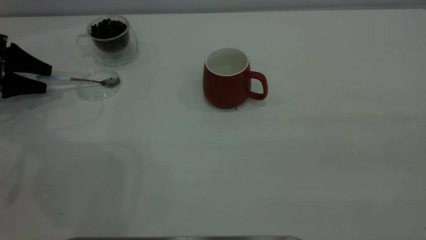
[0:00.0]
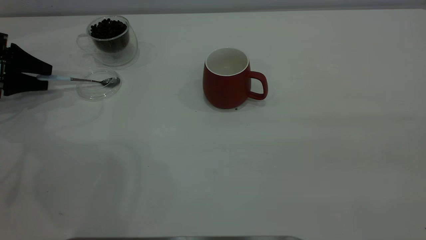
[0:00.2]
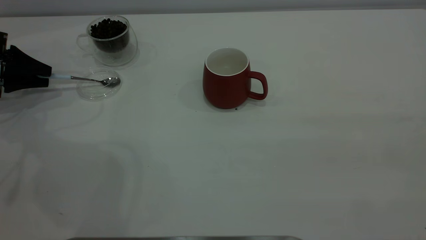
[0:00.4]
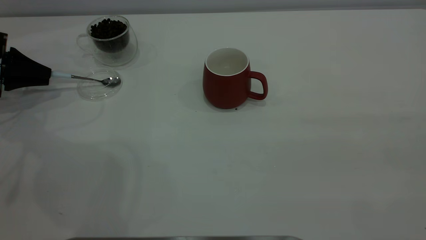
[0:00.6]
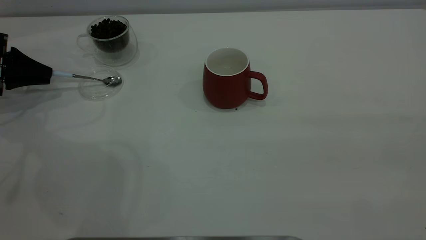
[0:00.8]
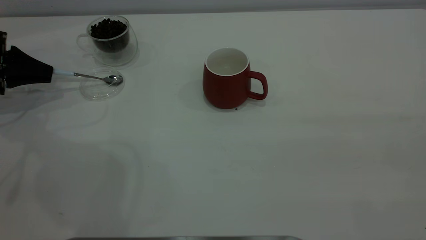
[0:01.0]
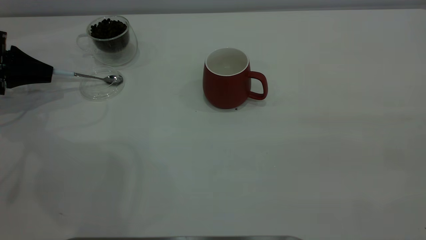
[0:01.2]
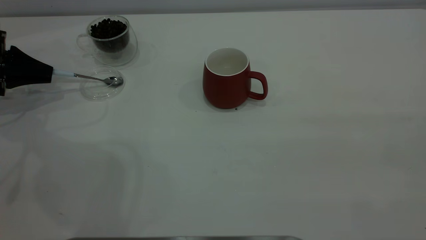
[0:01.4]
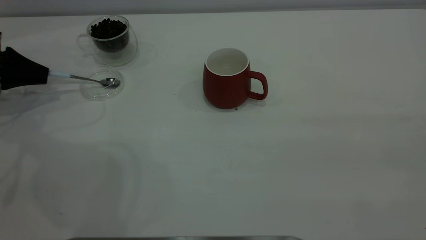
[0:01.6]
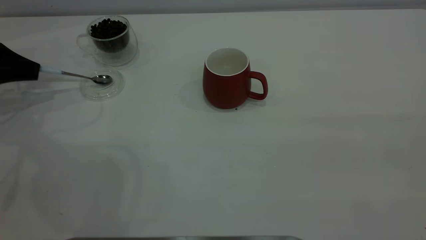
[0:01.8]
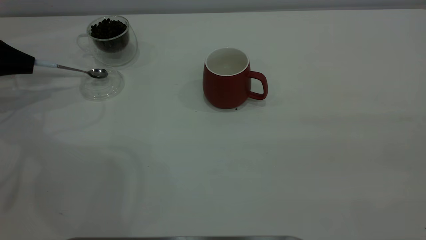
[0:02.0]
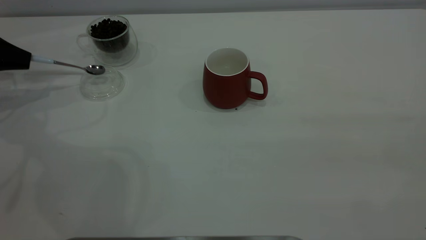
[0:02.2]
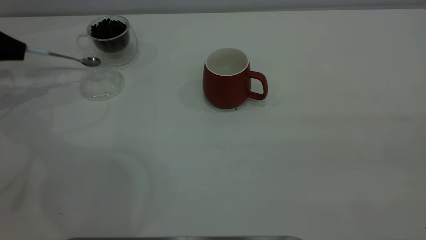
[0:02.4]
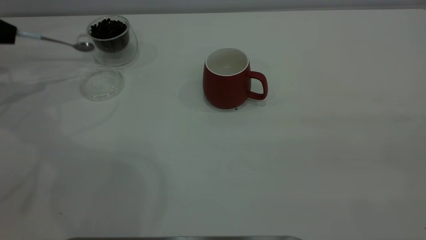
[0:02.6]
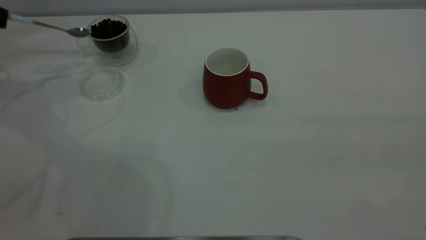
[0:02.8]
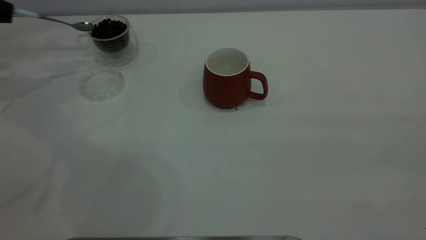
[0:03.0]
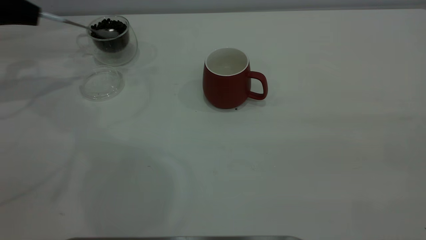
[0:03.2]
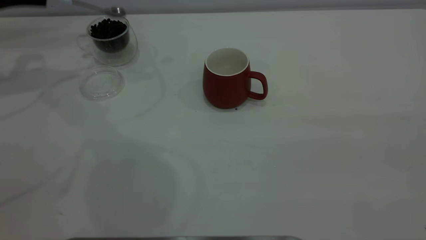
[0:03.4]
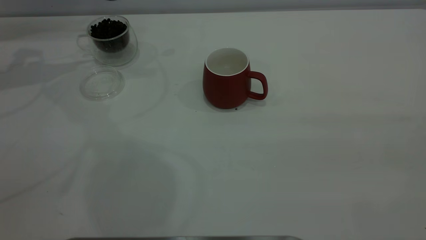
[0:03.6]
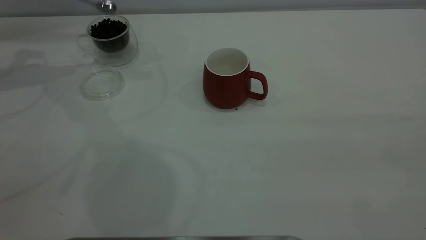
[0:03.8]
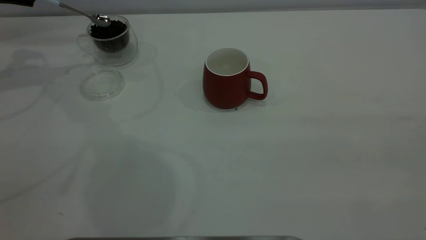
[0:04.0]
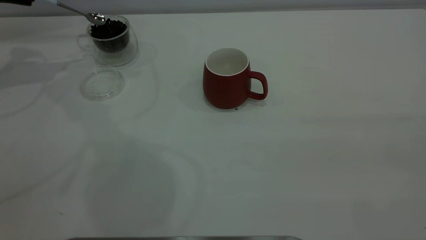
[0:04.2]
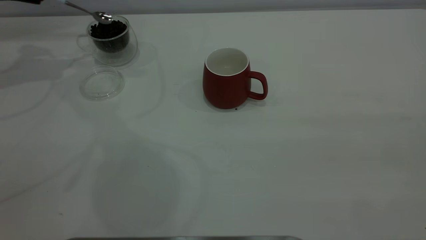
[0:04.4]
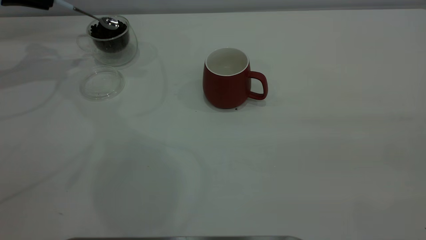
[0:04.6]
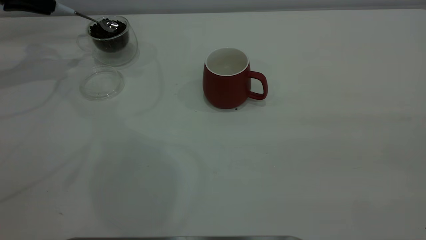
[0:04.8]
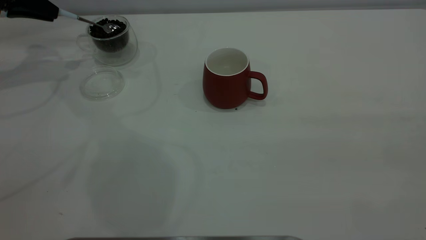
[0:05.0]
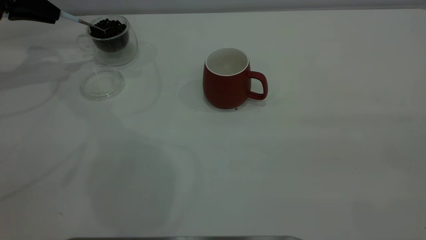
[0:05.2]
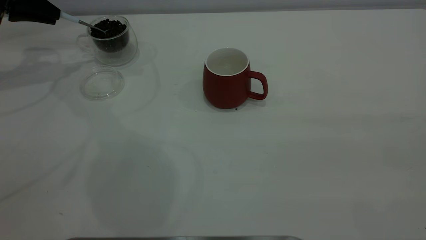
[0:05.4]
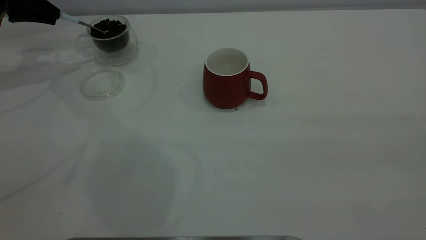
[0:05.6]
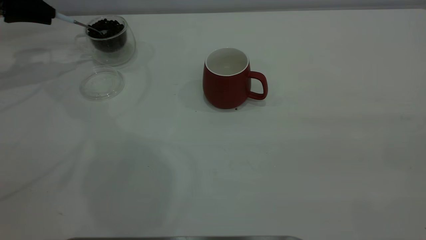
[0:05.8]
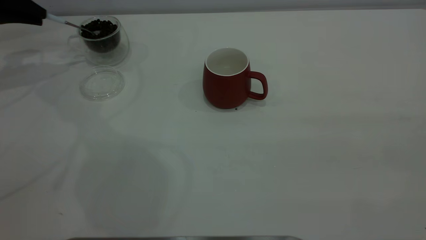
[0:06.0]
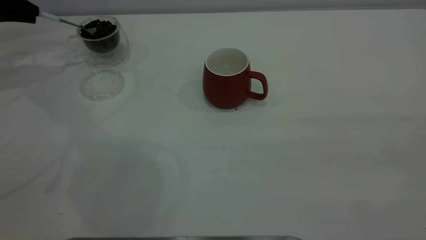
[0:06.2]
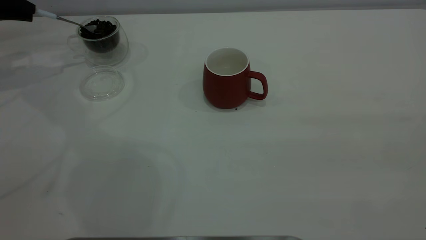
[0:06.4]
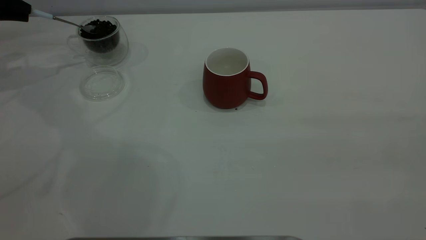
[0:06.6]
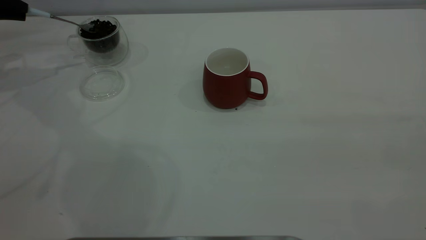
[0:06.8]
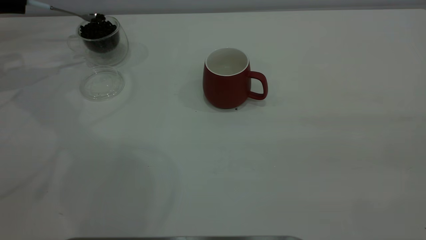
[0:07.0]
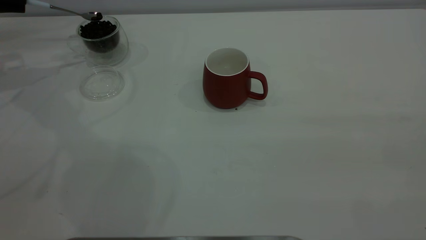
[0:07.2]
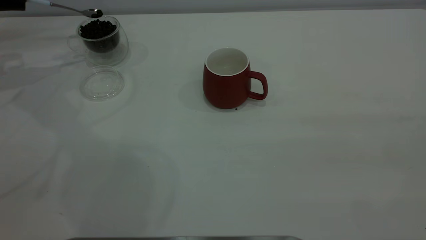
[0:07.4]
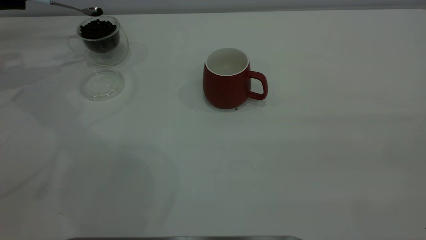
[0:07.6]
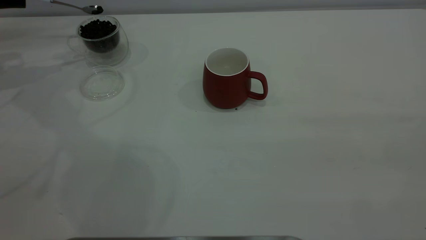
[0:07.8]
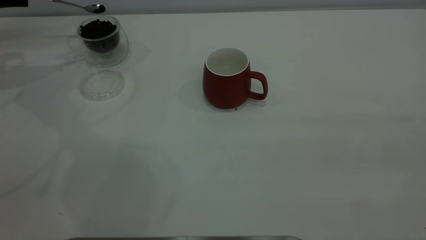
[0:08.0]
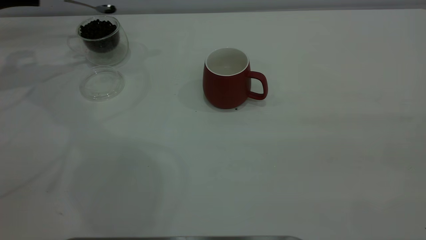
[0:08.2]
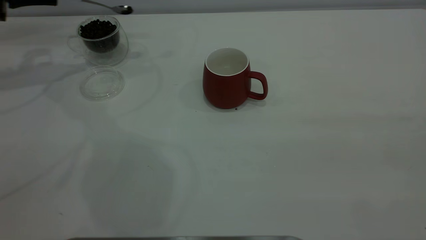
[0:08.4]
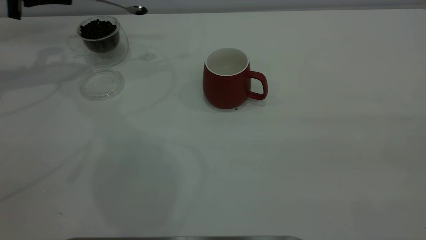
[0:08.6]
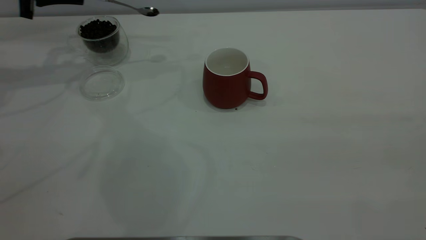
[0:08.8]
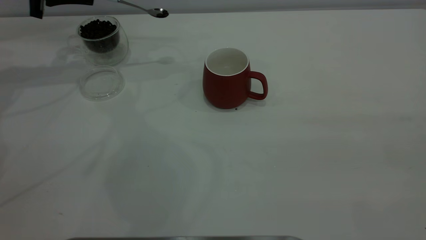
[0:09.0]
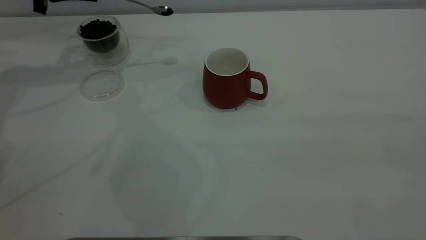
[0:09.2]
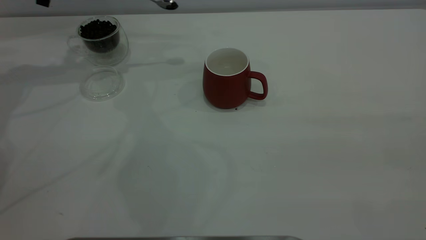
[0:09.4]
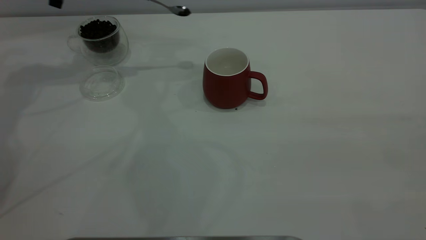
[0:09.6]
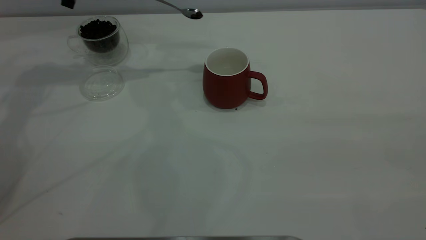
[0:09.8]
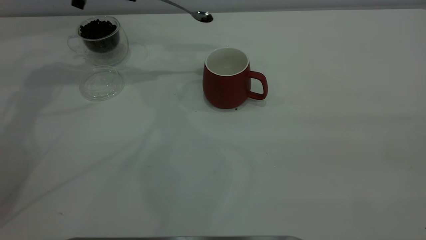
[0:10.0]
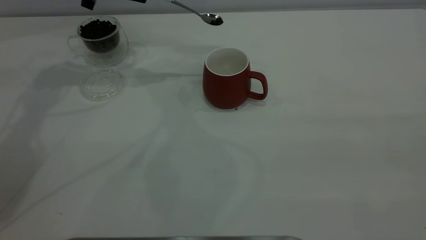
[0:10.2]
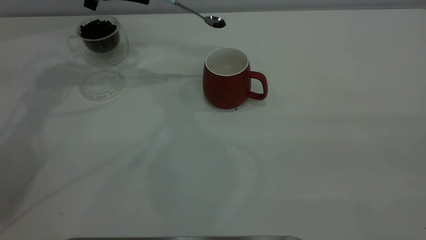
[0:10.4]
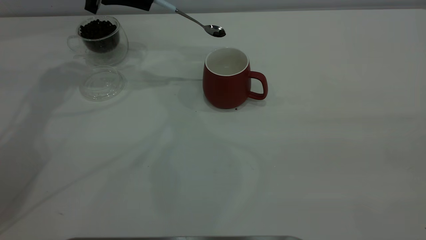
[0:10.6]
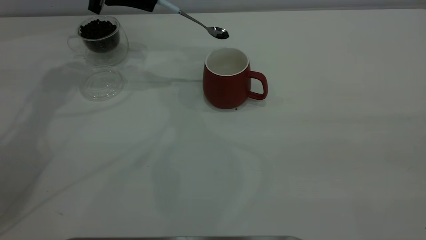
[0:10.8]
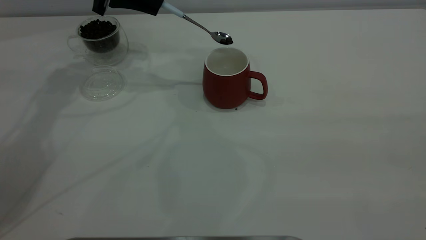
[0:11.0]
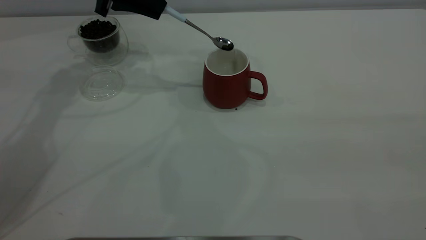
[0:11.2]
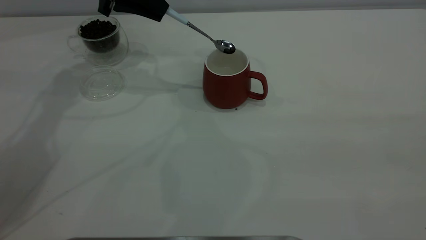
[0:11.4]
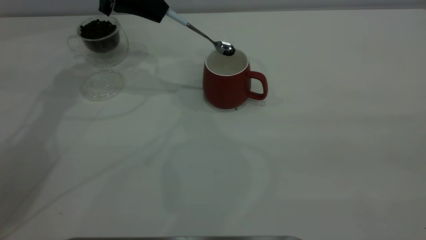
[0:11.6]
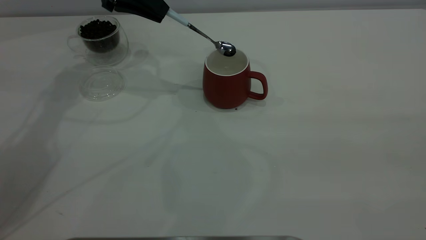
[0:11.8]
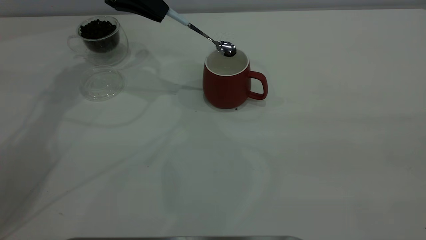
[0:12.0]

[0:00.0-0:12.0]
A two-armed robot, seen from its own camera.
Task of the whole recording: the right gripper place the red cup in the center of the table, the left gripper take the blue spoon from the cup lid and scoop out the coffee beans from the coffee cup and put them into the red cup, the left gripper put the spoon back into the cup lid.
Step, 0:00.0 to 0:02.2: Pick up the spoon.
0:00.0 to 0:01.6: The left gripper closes up.
0:01.6 to 0:03.0: The left gripper shifts roughly 10 cm upward.
0:03.0 to 0:04.4: The left gripper moves forward, approximately 5 cm.
0:06.0 to 0:07.6: The grippers stay close to where they were, moving slightly.
0:07.6 to 0:09.0: The left gripper goes about 10 cm to the right.
0:09.0 to 0:10.4: The left gripper travels to the right by approximately 10 cm.

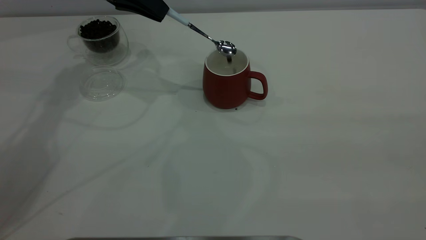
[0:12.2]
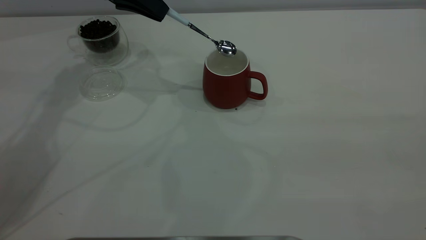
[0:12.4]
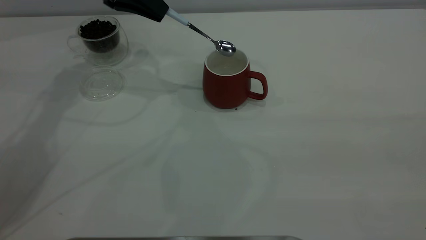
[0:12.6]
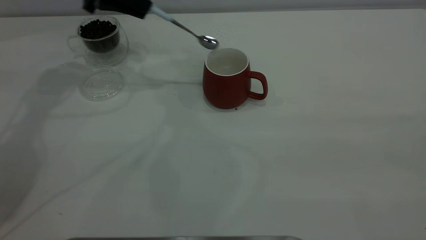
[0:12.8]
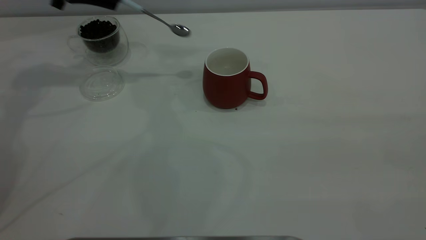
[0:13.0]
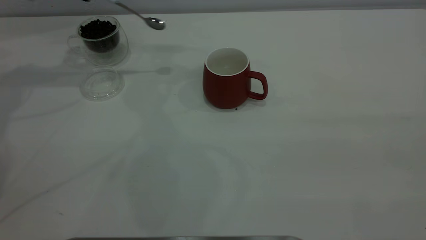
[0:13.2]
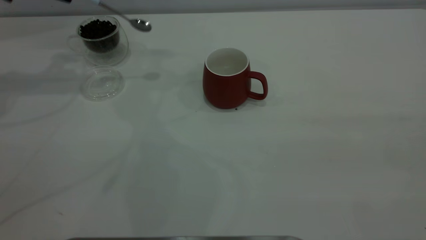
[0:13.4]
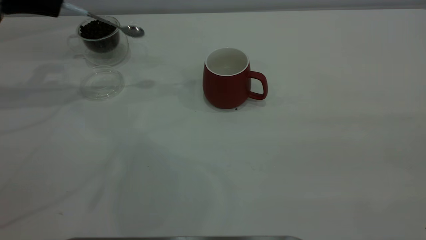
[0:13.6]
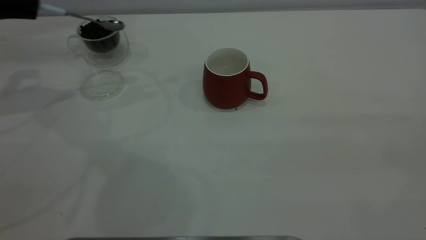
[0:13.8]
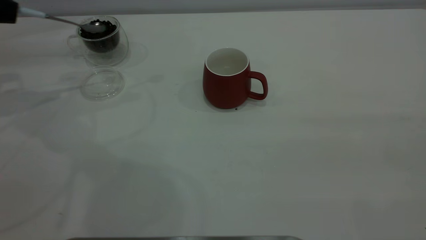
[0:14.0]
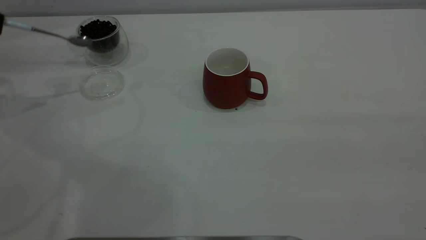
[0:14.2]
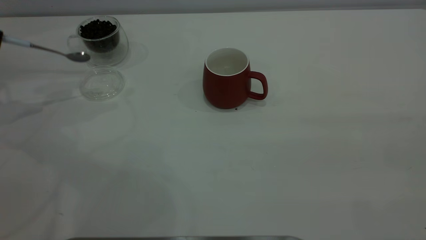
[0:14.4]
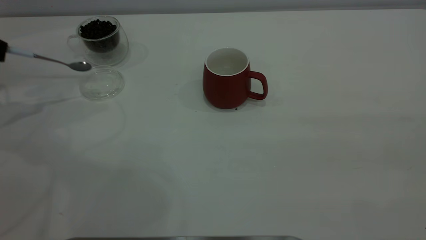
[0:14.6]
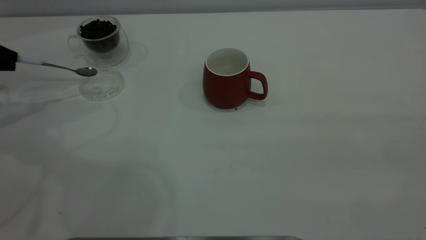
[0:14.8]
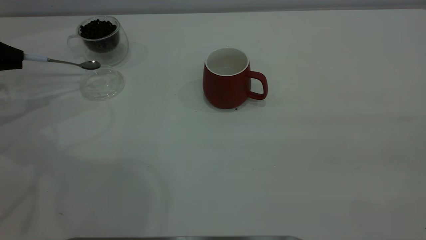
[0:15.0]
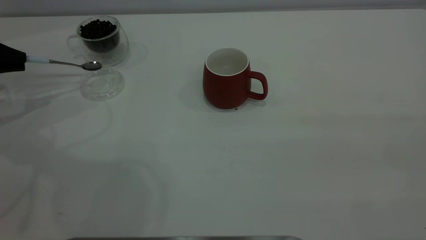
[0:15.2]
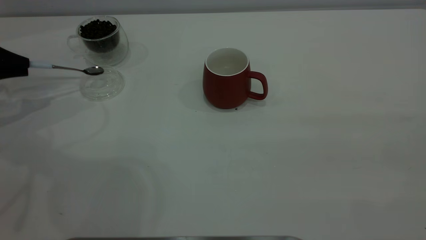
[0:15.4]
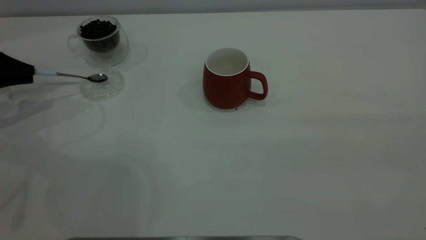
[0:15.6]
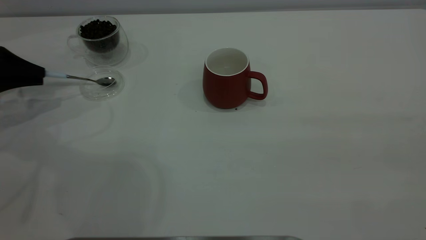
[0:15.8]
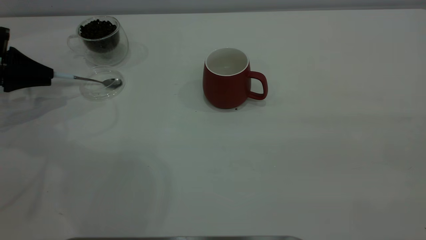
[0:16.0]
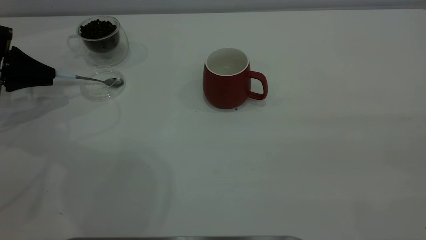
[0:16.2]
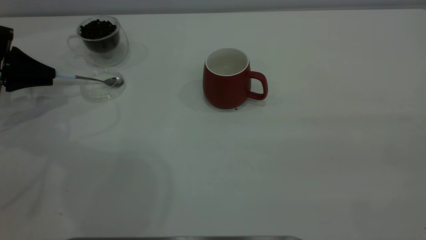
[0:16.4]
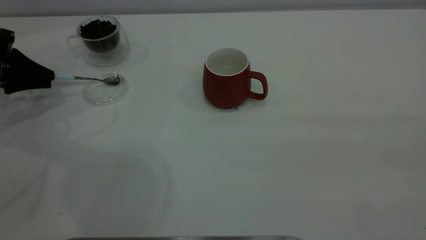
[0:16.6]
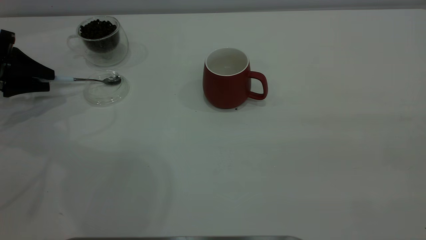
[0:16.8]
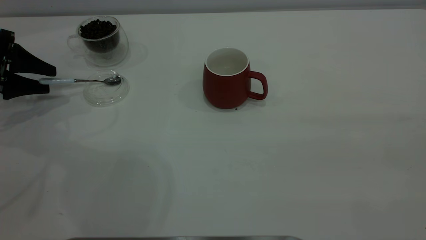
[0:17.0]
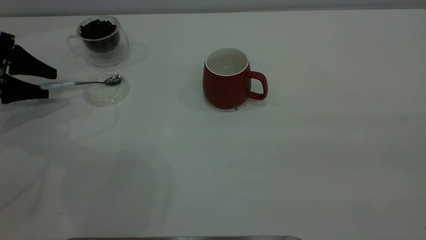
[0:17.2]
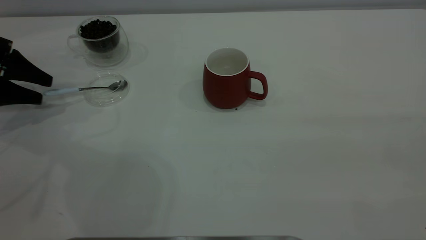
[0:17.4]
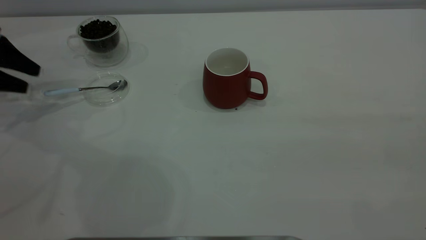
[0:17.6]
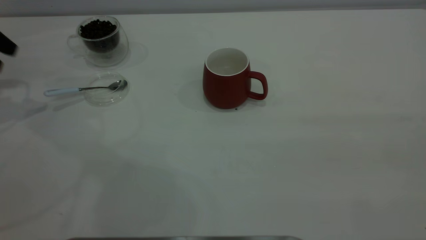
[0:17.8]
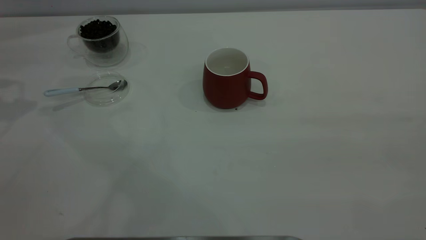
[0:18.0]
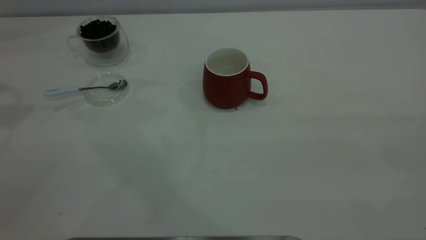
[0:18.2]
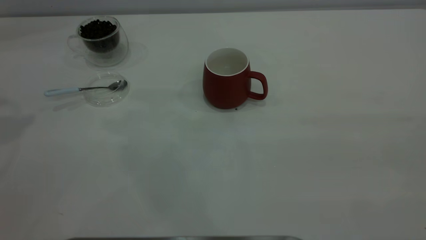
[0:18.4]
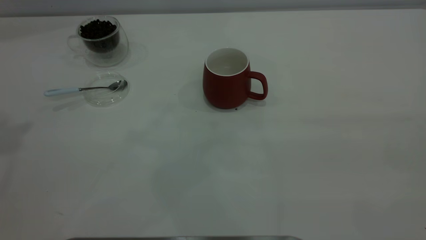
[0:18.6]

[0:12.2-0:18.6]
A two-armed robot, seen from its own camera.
Task of the whole recording: the right gripper place the red cup in the center of the table, the left gripper take the blue spoon from the cup lid and scoop out the coffee beans from the coffee cup and put them into the red cup, the left gripper put the spoon back into the cup lid.
Step, 0:13.0 to 0:17.4: Place the spoon back in its original place.
0:12.2 to 0:13.8: The left gripper shifts approximately 20 cm to the left.
0:13.8 to 0:15.4: The left gripper heads downward, covering roughly 10 cm.
0:15.4 to 0:17.0: The left gripper opens up.
0:17.0 to 0:18.6: The left gripper moves upward, roughly 40 cm.
